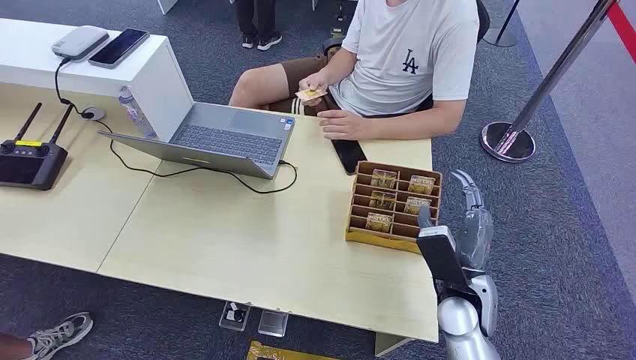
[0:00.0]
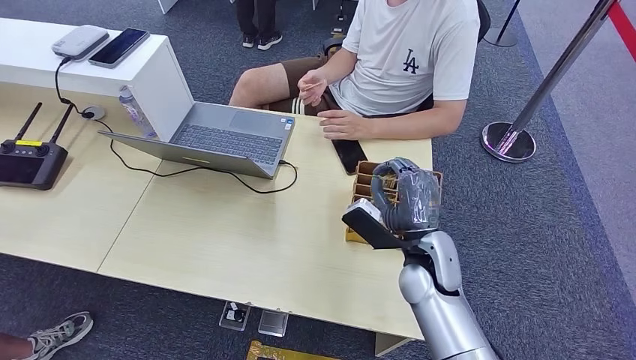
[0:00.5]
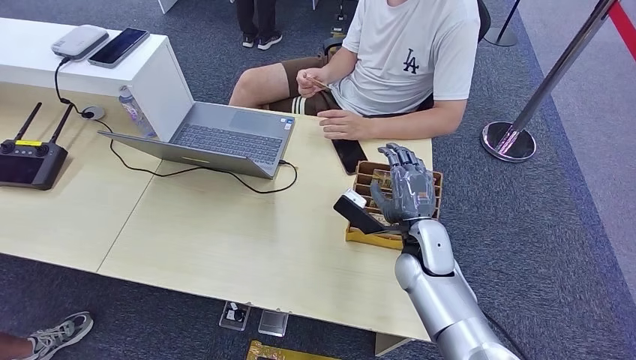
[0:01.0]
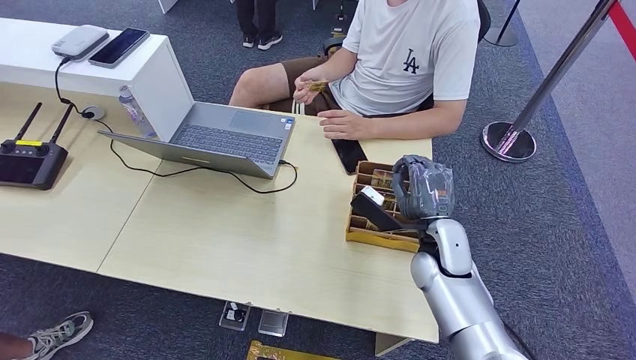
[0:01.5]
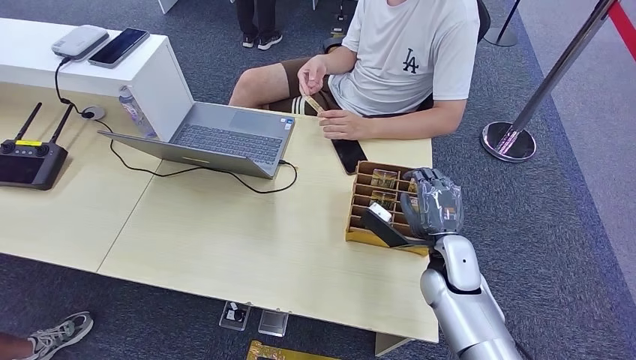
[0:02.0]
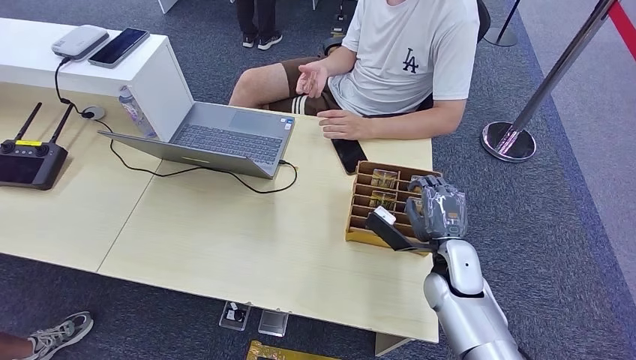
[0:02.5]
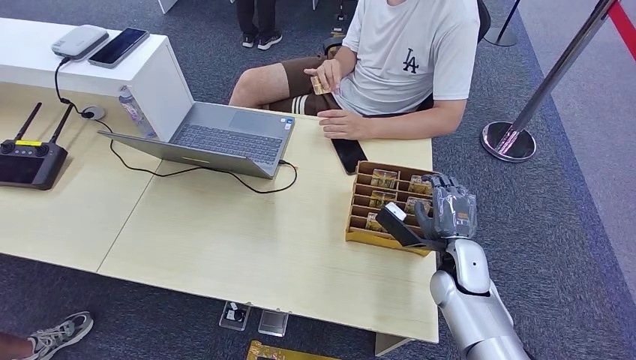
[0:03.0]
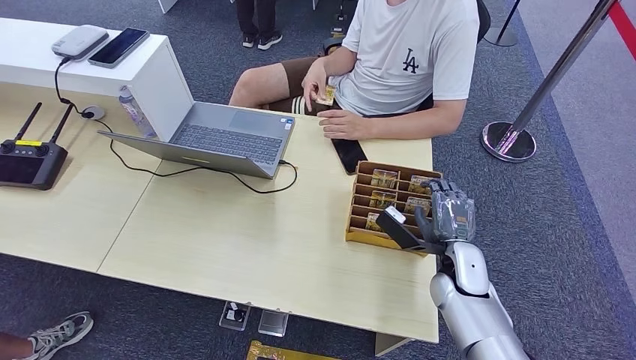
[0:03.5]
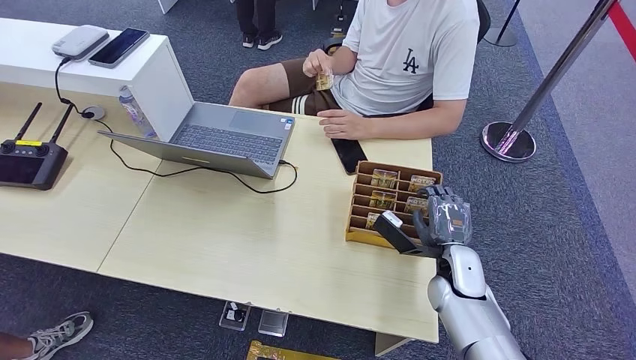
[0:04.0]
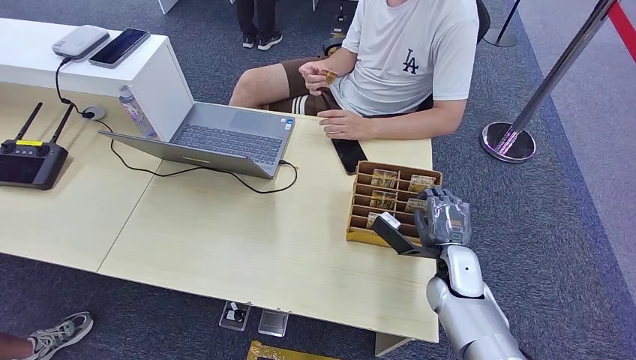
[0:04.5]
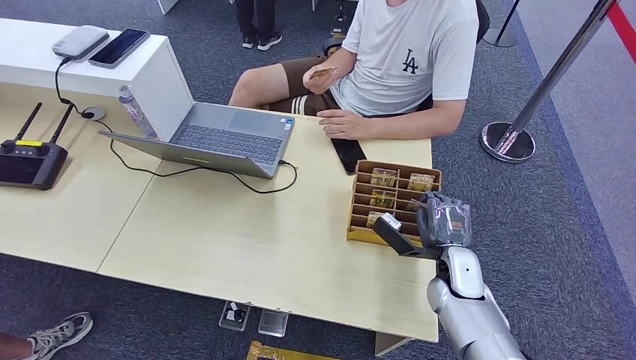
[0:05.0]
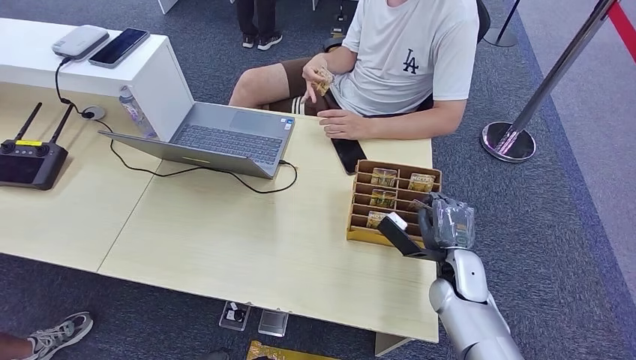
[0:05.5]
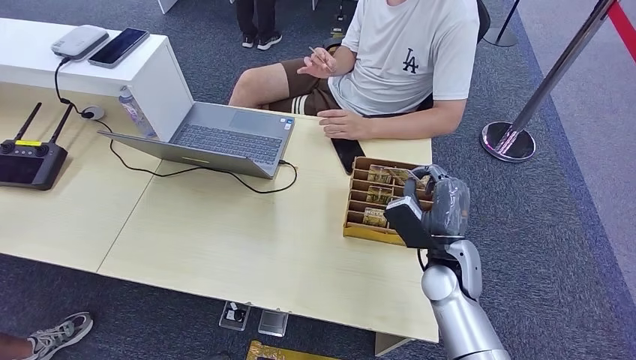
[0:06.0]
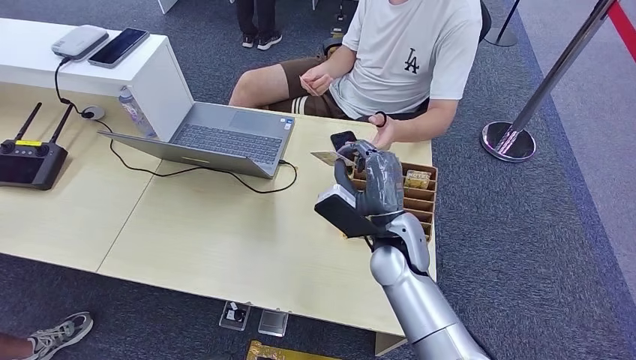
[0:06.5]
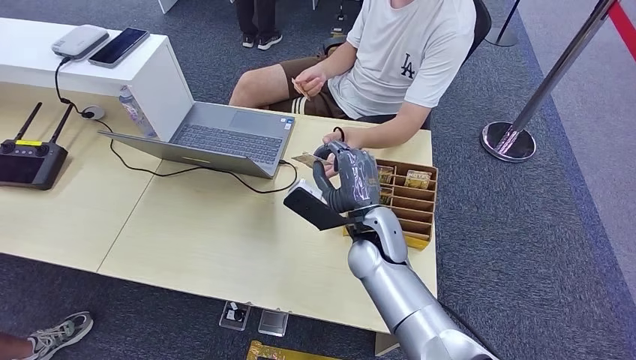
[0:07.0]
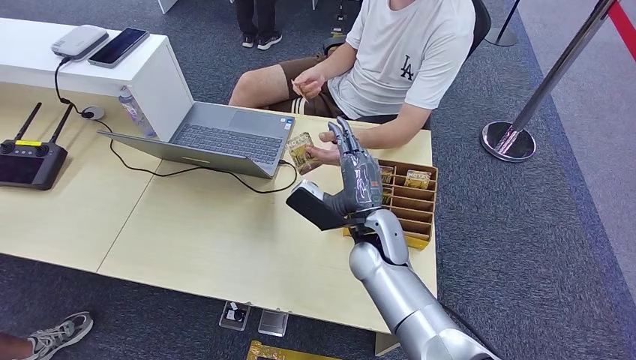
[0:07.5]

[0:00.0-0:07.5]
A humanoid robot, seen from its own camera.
Step, 0:00.0 to 0:06.0: Pick up the room card from the card holder.
Step, 0:06.5 to 0:07.5: Hand the room card to the target.
0:02.0 to 0:05.5: The hands stay close to where they were, moving slightly.
0:05.5 to 0:07.5: The right hand travels to the left and upward by approximately 20 cm.
